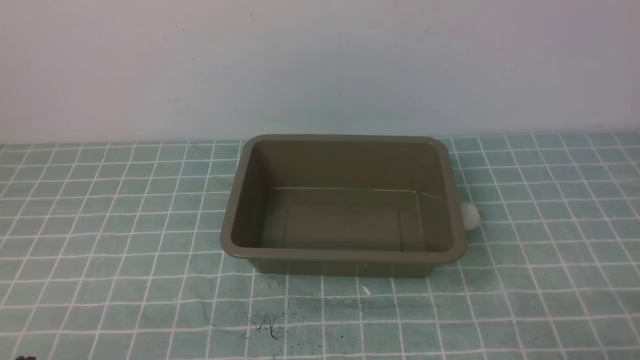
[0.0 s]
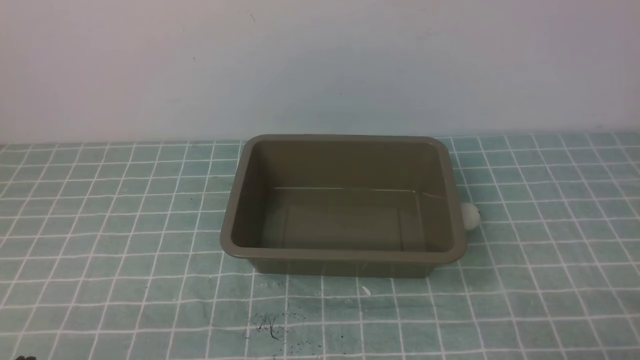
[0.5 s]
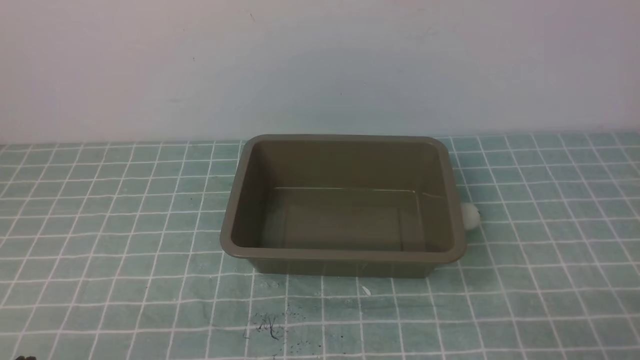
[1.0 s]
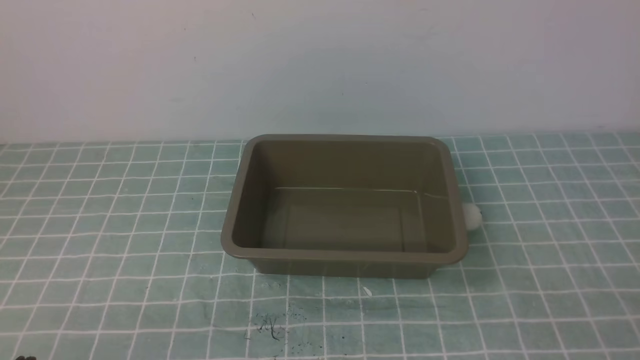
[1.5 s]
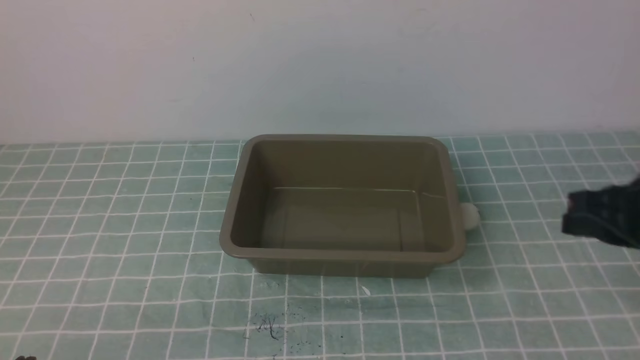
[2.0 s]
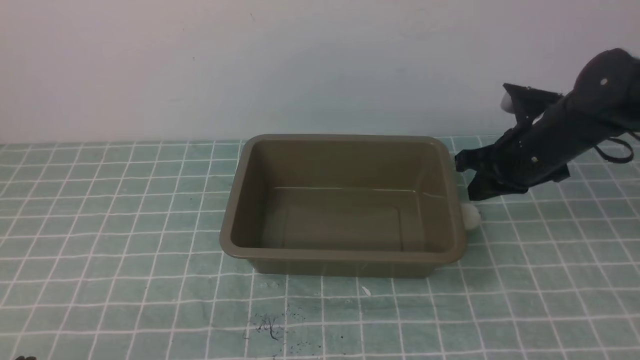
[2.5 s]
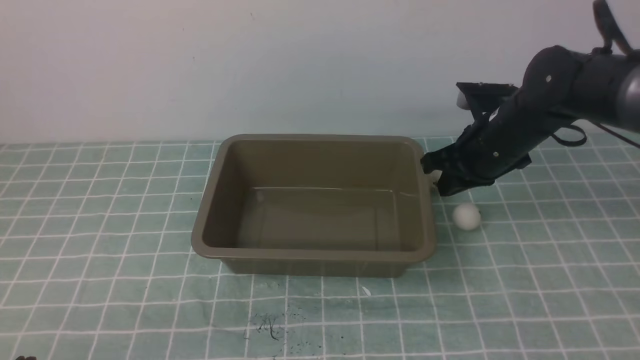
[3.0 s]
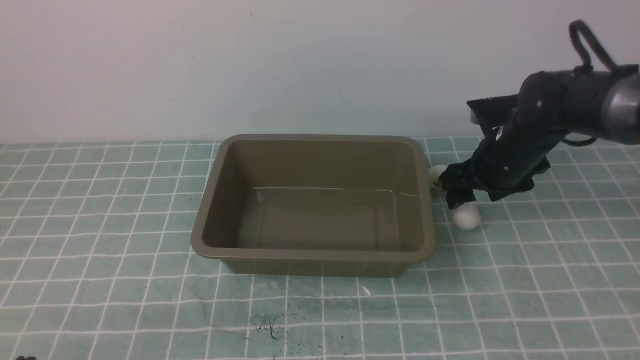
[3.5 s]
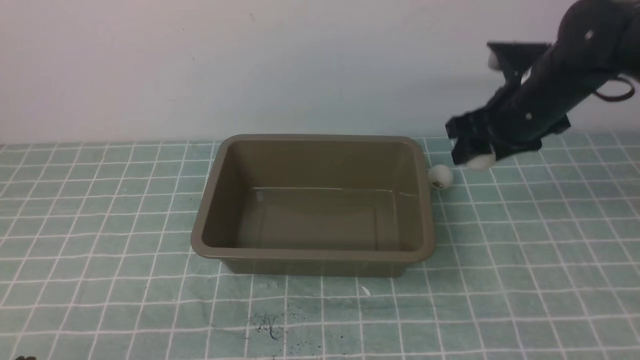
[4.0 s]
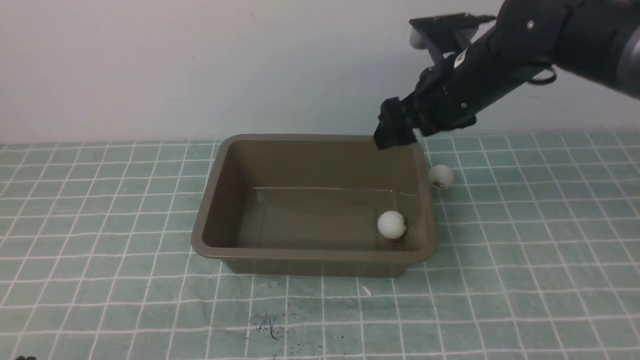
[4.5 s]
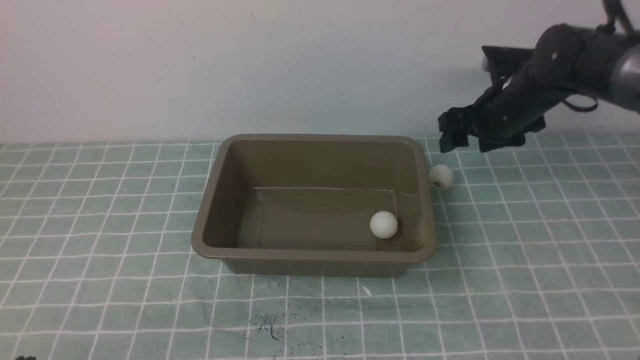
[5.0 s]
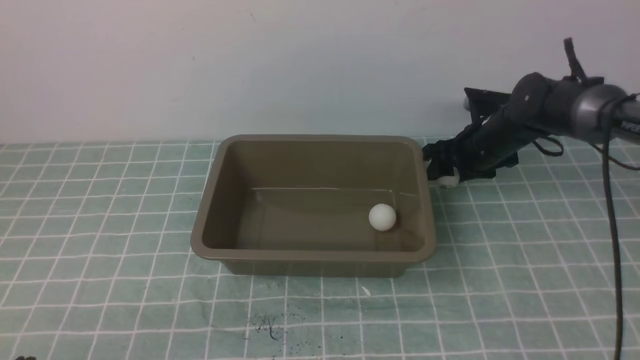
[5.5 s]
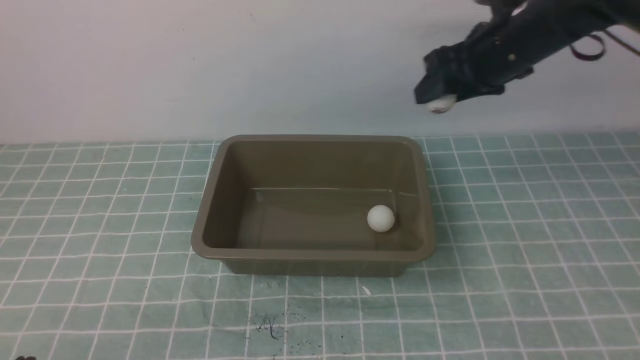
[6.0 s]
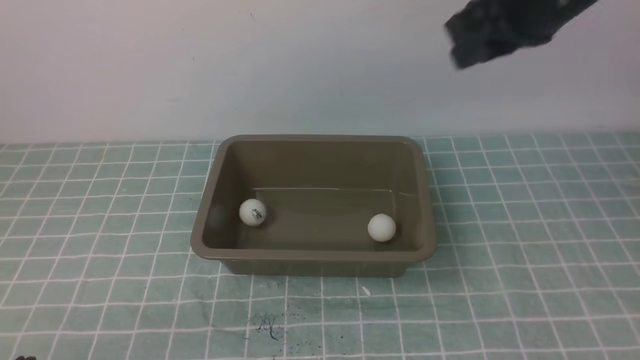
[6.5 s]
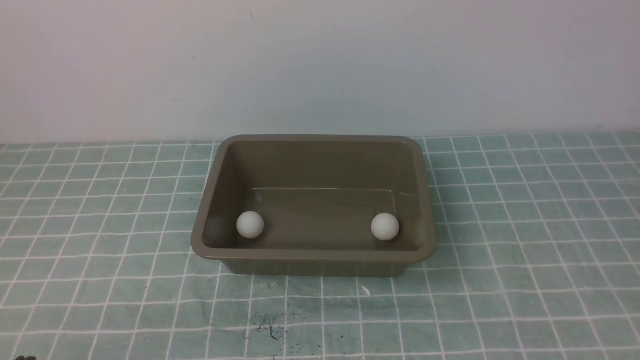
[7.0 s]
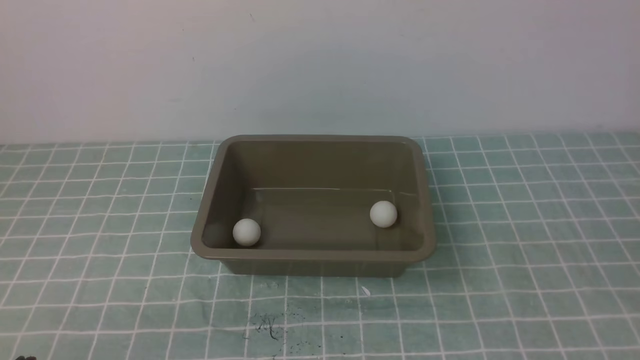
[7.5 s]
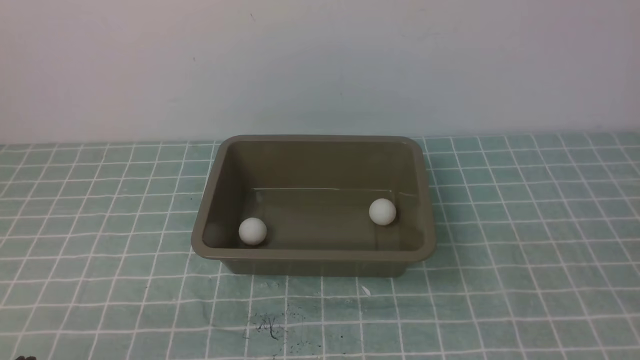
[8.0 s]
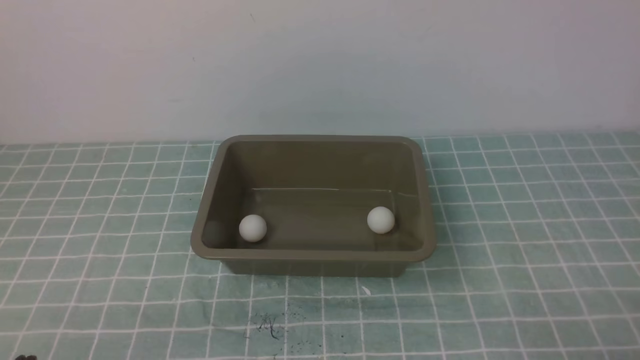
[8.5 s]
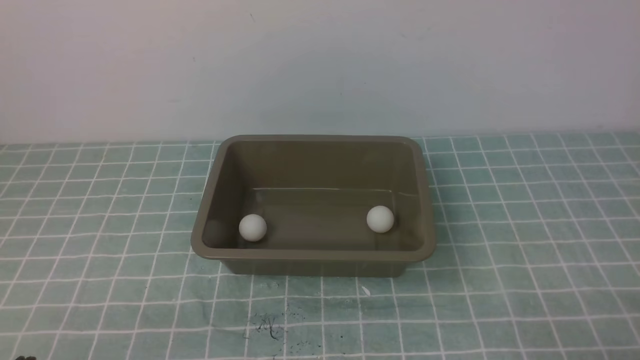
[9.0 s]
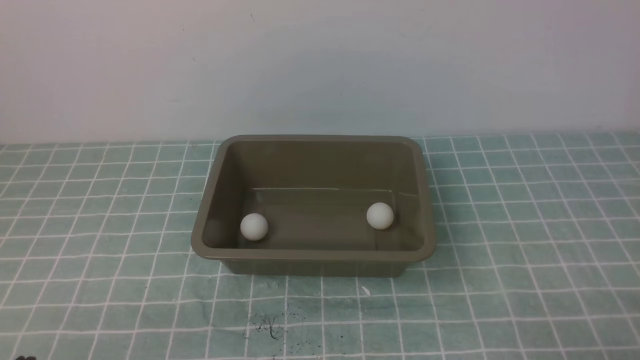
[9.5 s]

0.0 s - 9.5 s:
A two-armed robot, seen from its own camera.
Step, 0.0 s - 3.5 s: use the right arm to clamp the table tennis ball closest to it.
Step, 4.5 s - 5.5 s: use the right arm to clamp the table tennis ball closest to it.
0.0 s - 2.0 s: The right gripper moves forward and upward, roughly 20 cm.
2.0 s - 4.0 s: The right gripper is displaced forward and to the left by some 20 cm, and opens up.
4.0 s - 5.5 s: The right gripper heads downward and forward, covering roughly 15 cm.
5.5 s - 7.5 s: The right gripper travels backward by some 50 cm, and closes its fingers.
